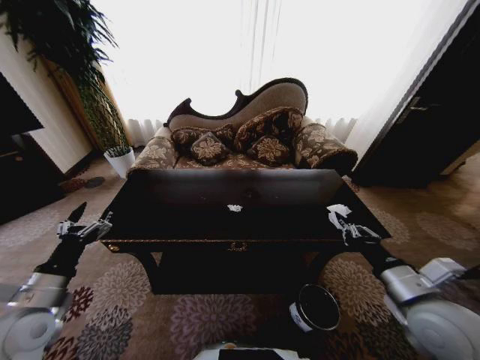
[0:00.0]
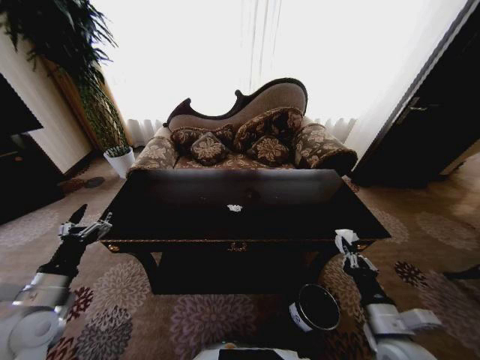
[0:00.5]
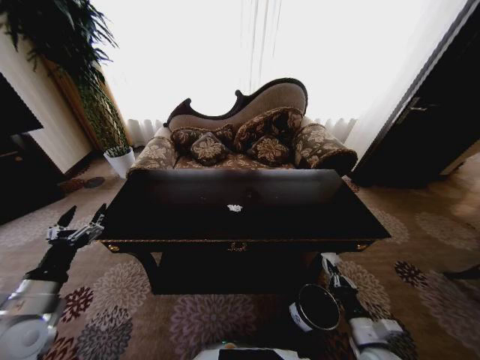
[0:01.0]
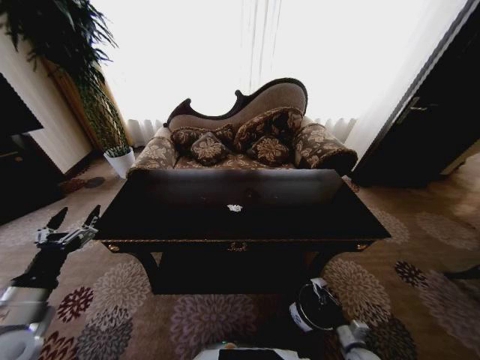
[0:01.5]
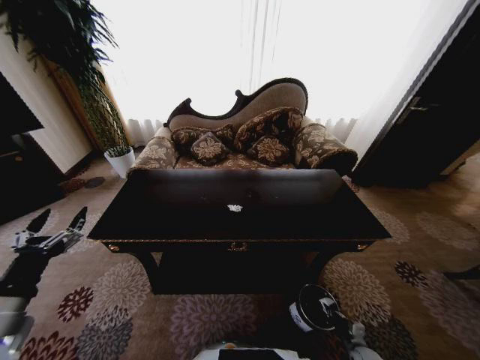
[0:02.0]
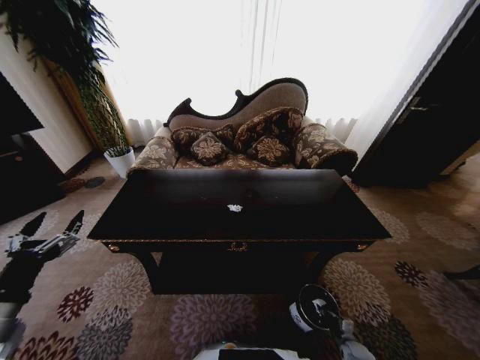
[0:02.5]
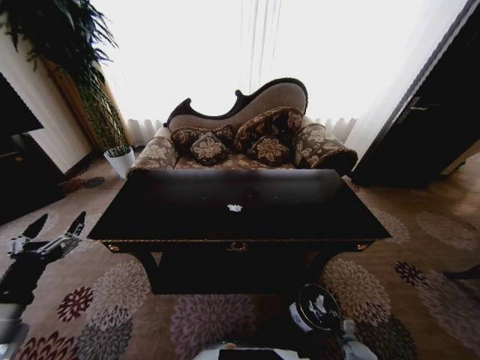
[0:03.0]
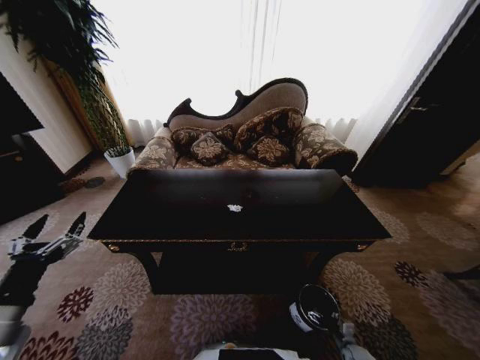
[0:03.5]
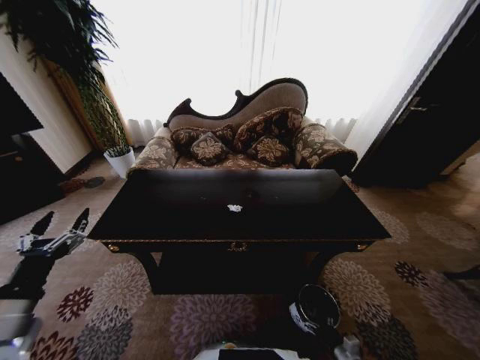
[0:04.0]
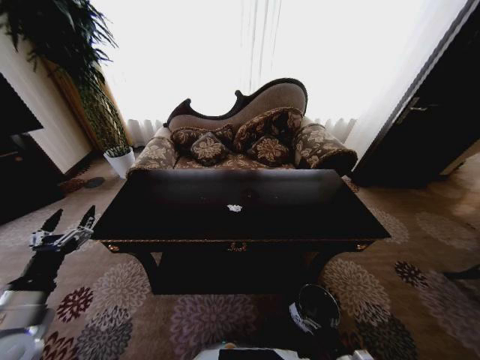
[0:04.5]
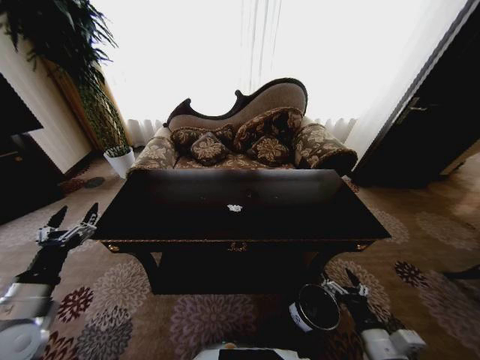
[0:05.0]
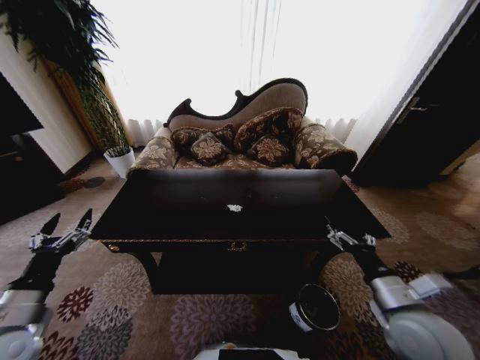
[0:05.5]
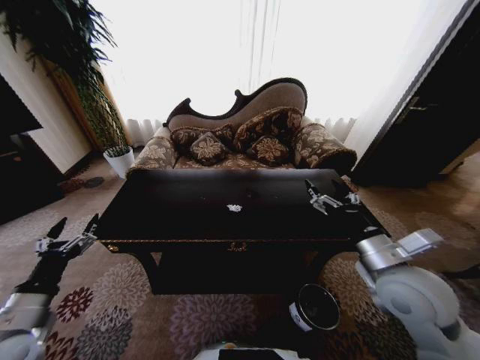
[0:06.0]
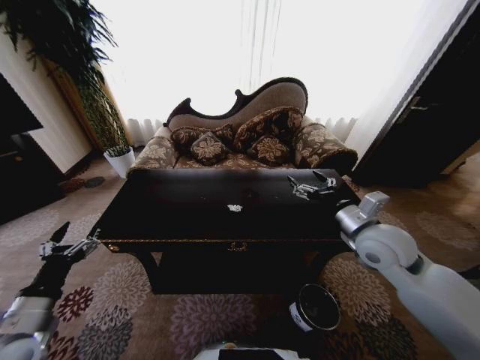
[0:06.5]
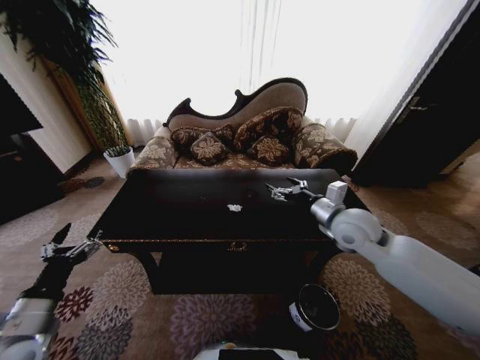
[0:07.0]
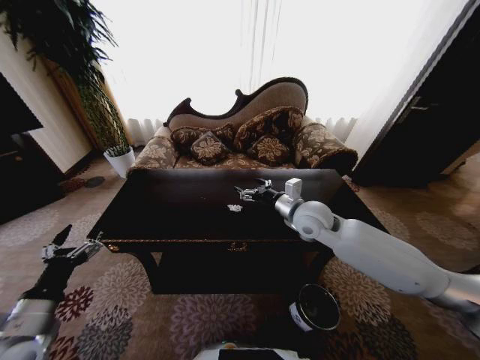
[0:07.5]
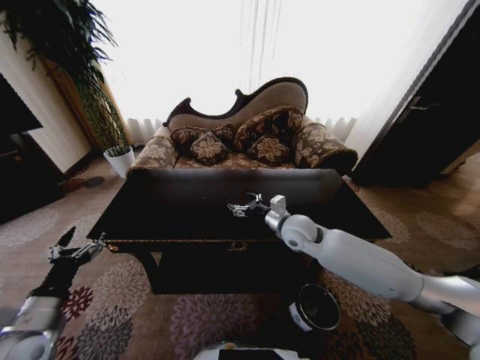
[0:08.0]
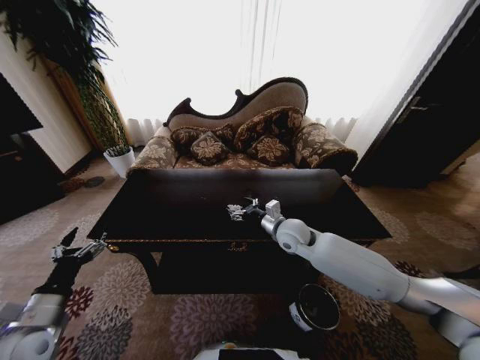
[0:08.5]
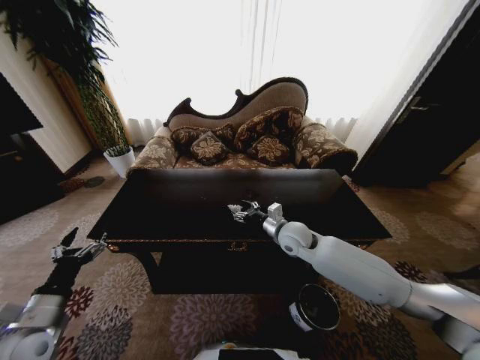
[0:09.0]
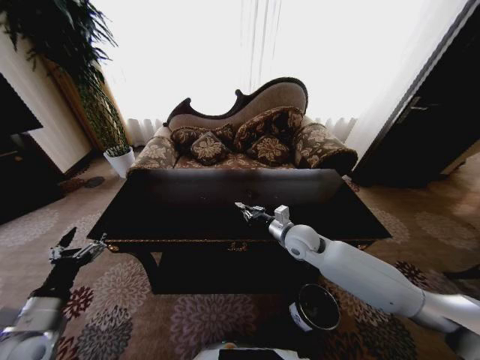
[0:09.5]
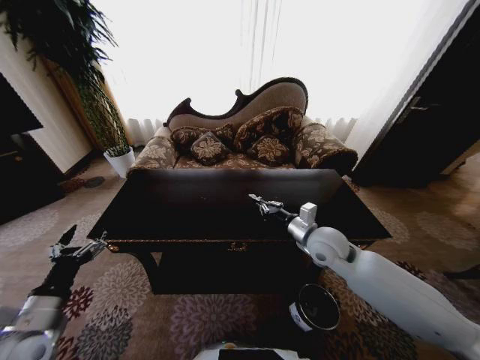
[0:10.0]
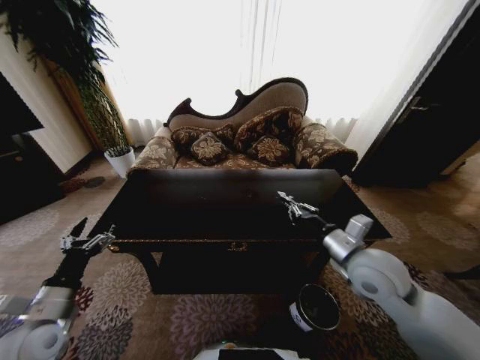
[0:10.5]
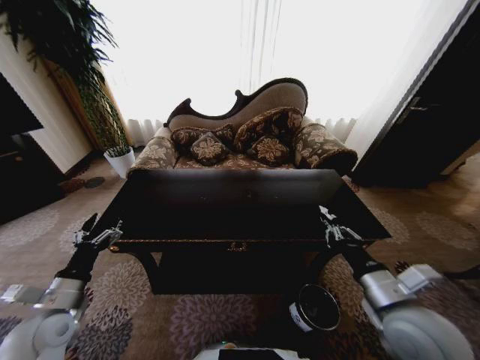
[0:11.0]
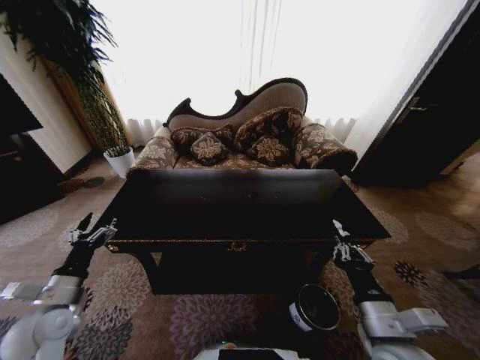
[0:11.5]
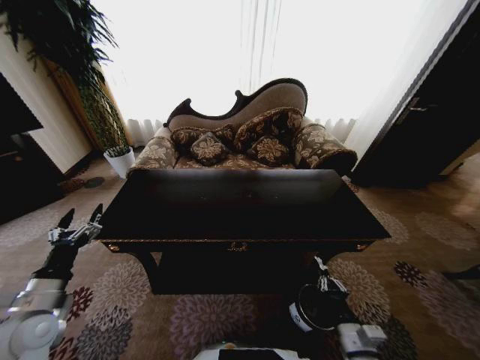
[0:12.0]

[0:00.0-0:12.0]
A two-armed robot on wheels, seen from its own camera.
Task of the whole recording: Move to the front of the table and place the trash on the table into the trash bin.
0:00.0 to 0:02.0: The left gripper shifts roughly 5 cm backward. The right gripper is displaced downward by roughly 40 cm.
0:02.0 to 0:04.0: The right gripper ends up roughly 5 cm from where it was, and opens up.
0:04.0 to 0:06.0: The right gripper shifts approximately 40 cm upward.
0:06.0 to 0:08.0: The right gripper goes some 20 cm forward and to the left.
0:08.0 to 0:10.0: The right gripper heads to the right and backward, covering roughly 10 cm, and closes up.
0:10.0 to 0:12.0: The right gripper travels backward and downward by some 30 cm.

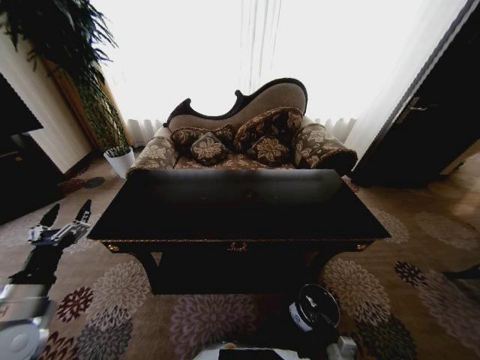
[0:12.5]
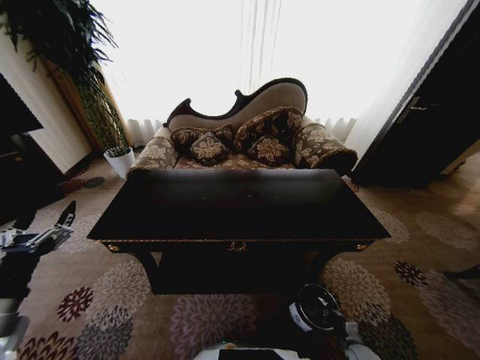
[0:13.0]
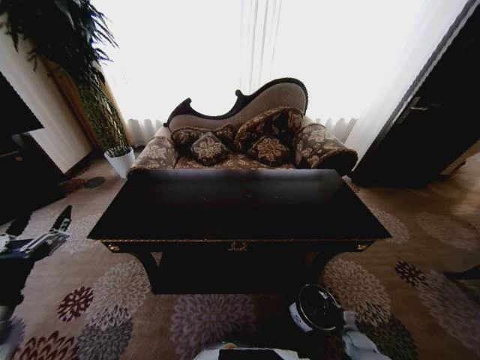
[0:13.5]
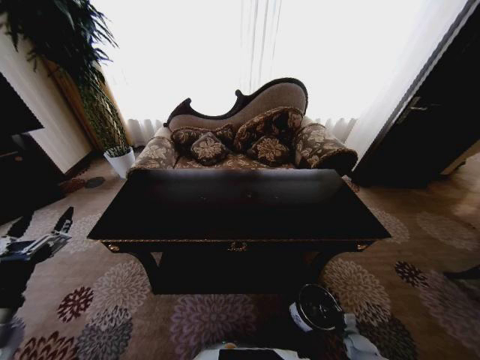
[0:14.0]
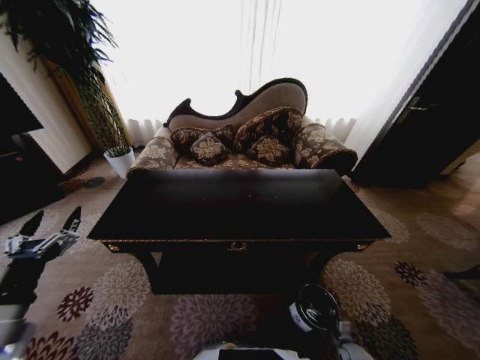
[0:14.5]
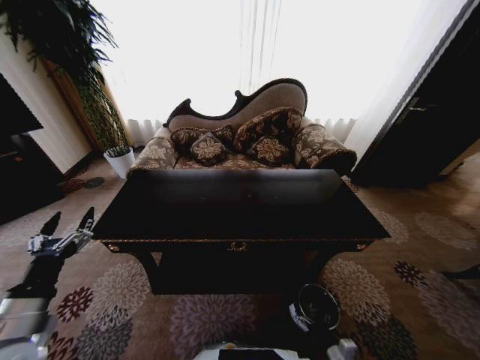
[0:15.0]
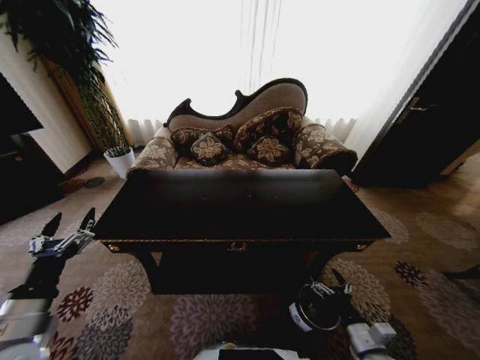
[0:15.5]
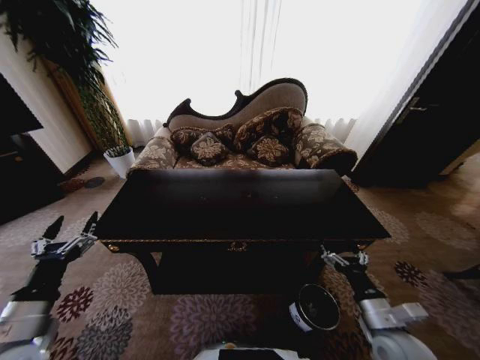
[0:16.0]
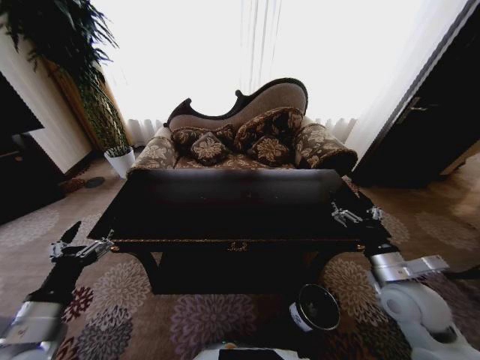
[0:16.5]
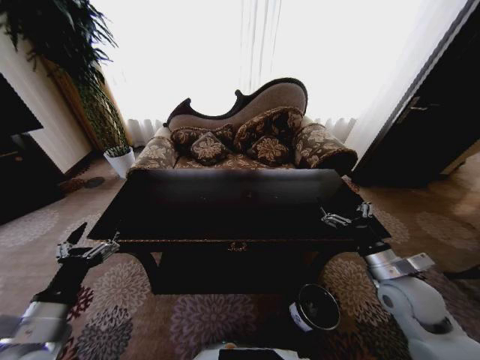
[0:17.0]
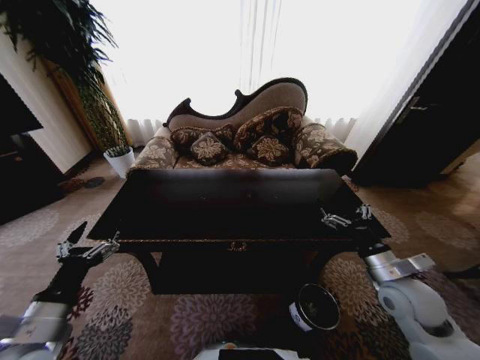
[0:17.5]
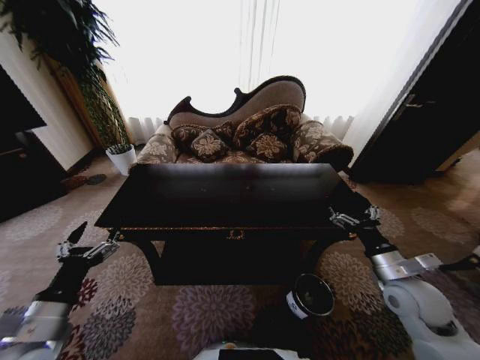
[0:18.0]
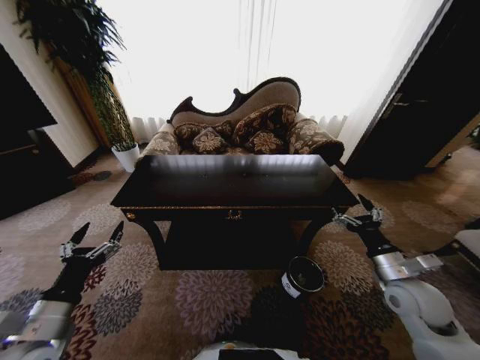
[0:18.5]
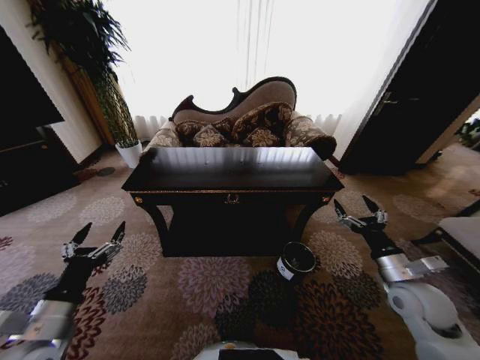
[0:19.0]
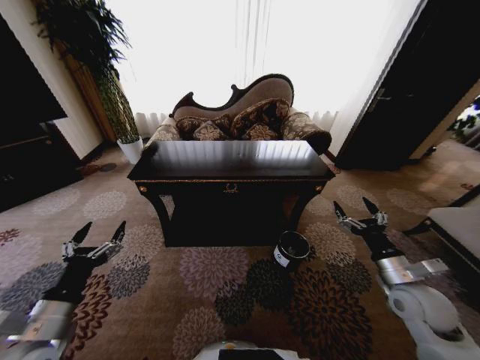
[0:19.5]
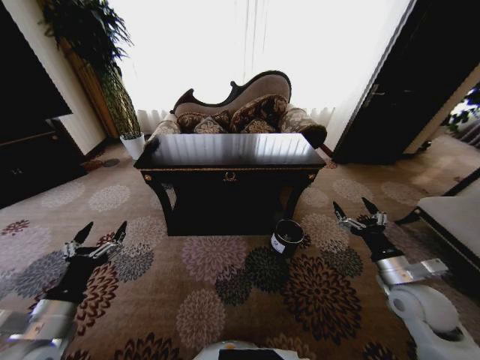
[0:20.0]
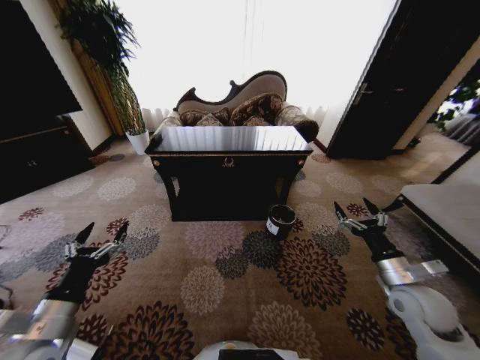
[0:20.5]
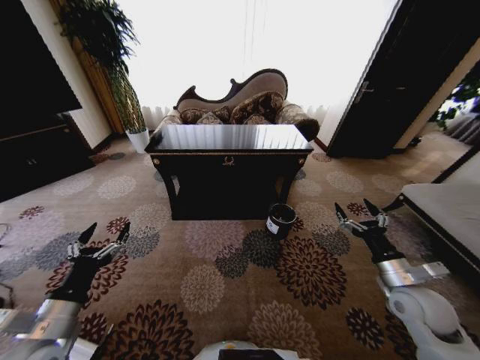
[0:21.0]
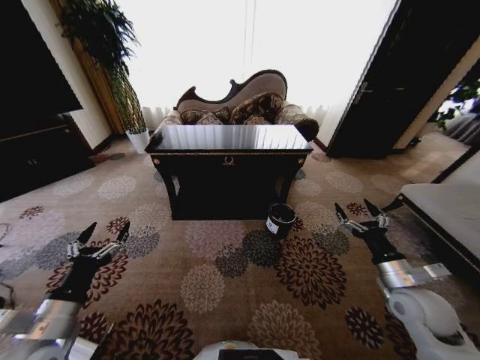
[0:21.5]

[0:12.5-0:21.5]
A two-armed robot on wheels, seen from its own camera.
Task of the whole recording: Move to the front of the table and place the trash on the table into the trash bin.
0:14.5 to 0:17.0: The right gripper travels upward by about 40 cm.
